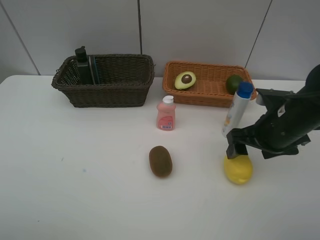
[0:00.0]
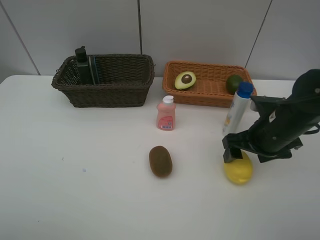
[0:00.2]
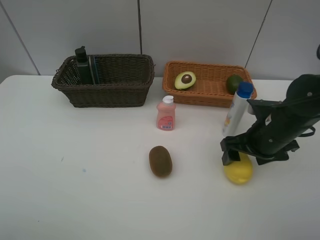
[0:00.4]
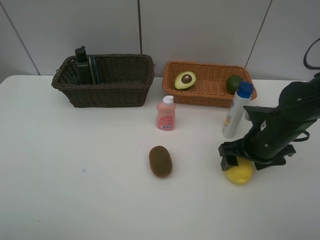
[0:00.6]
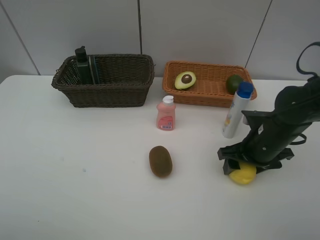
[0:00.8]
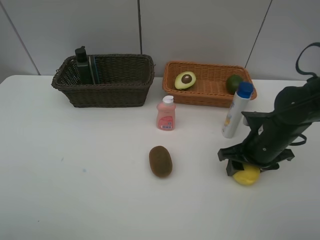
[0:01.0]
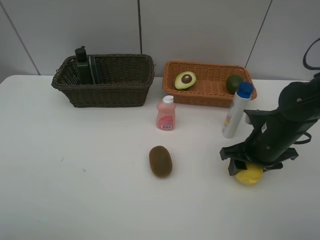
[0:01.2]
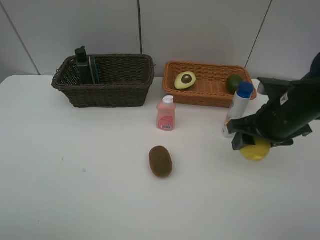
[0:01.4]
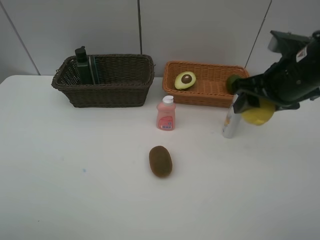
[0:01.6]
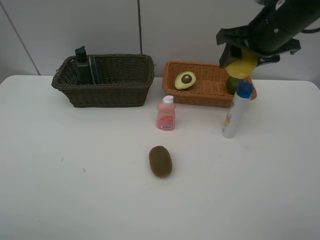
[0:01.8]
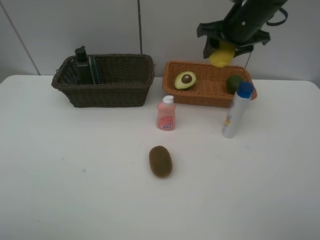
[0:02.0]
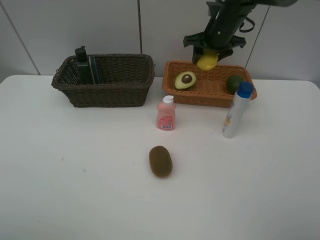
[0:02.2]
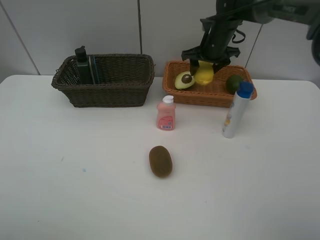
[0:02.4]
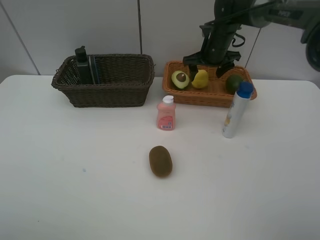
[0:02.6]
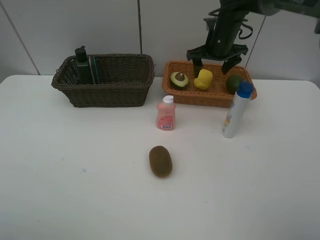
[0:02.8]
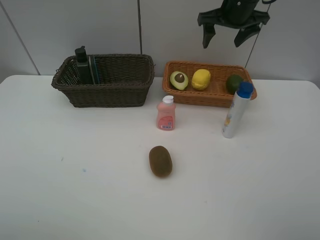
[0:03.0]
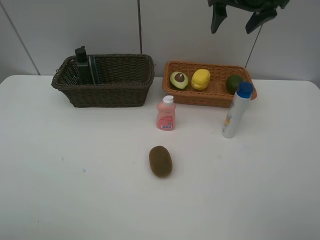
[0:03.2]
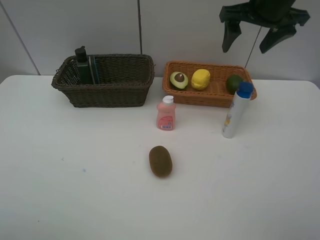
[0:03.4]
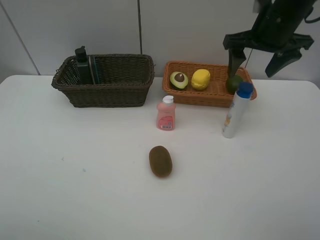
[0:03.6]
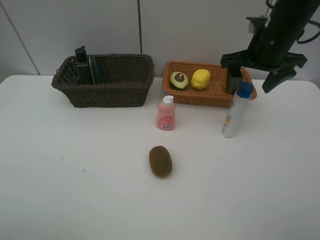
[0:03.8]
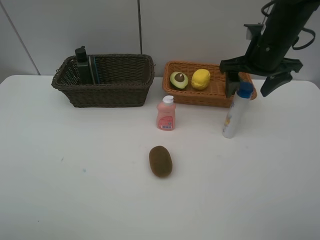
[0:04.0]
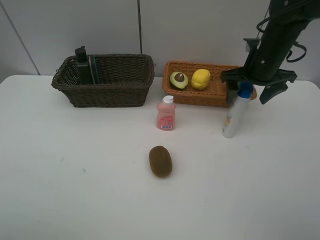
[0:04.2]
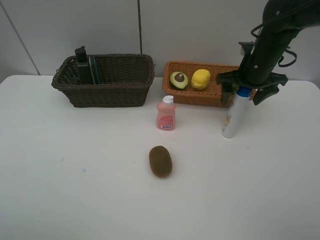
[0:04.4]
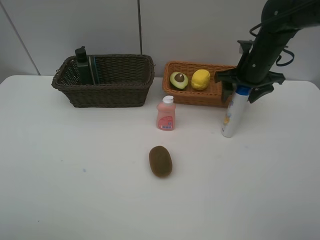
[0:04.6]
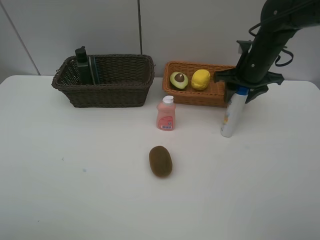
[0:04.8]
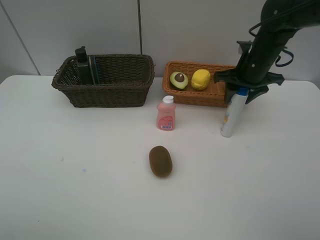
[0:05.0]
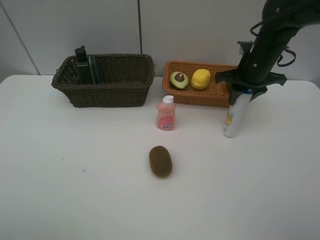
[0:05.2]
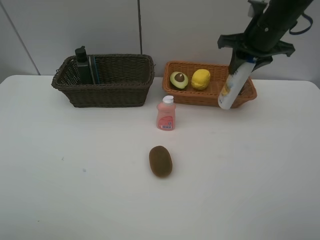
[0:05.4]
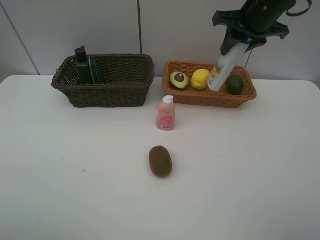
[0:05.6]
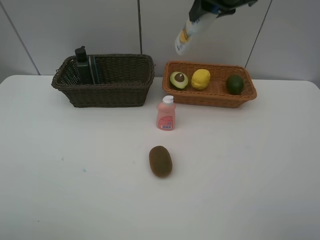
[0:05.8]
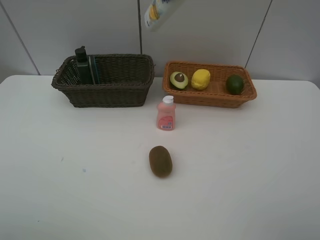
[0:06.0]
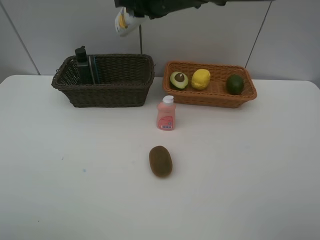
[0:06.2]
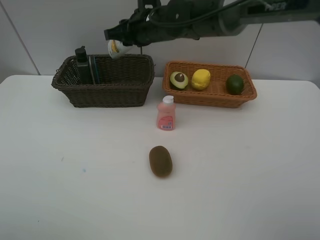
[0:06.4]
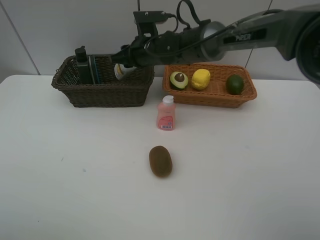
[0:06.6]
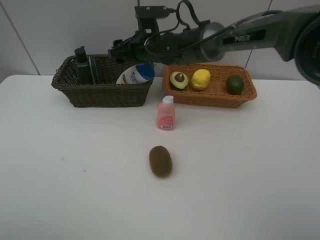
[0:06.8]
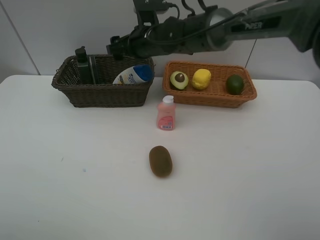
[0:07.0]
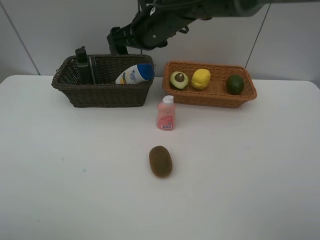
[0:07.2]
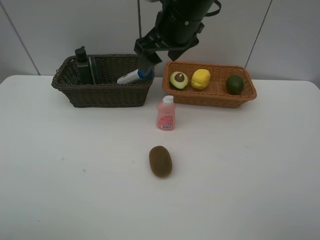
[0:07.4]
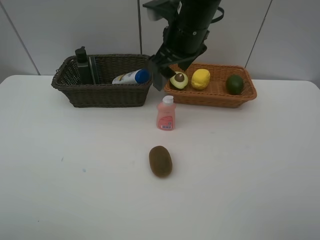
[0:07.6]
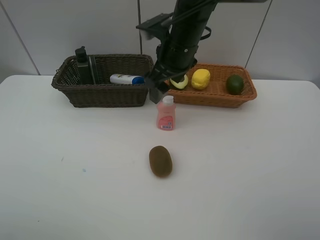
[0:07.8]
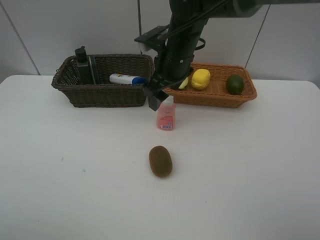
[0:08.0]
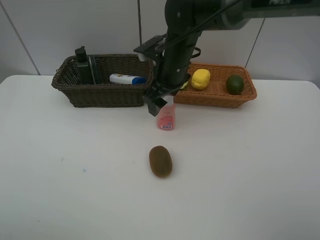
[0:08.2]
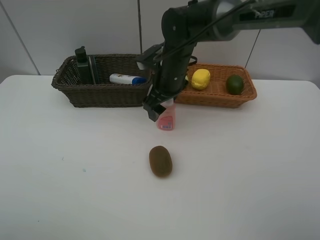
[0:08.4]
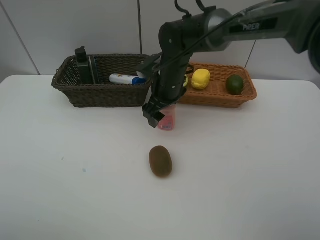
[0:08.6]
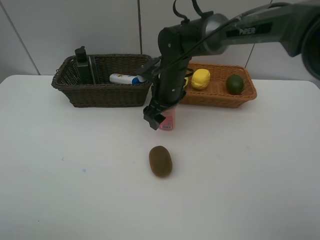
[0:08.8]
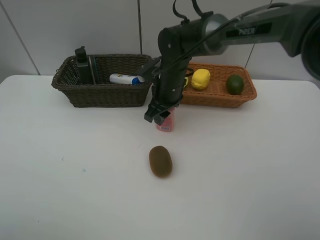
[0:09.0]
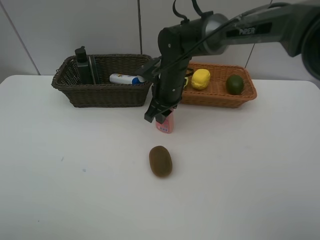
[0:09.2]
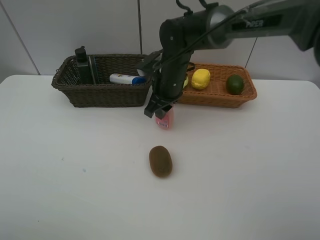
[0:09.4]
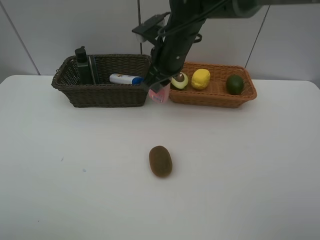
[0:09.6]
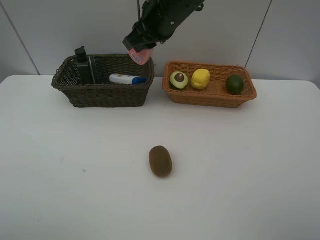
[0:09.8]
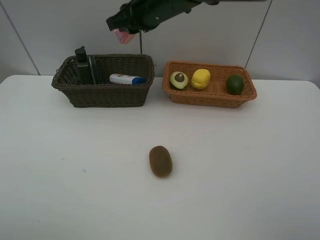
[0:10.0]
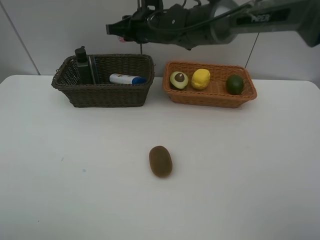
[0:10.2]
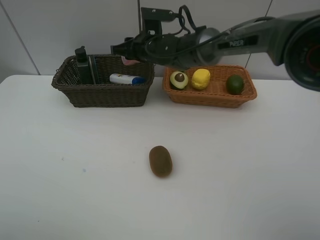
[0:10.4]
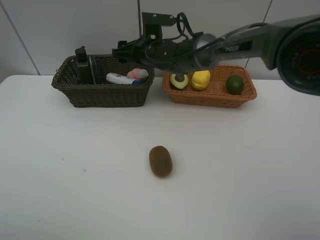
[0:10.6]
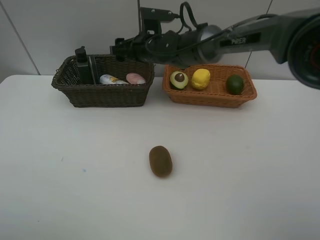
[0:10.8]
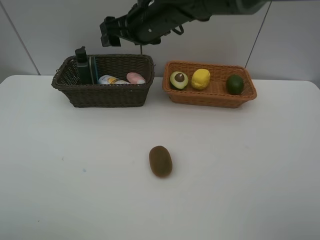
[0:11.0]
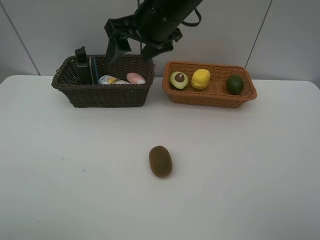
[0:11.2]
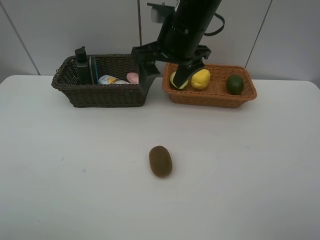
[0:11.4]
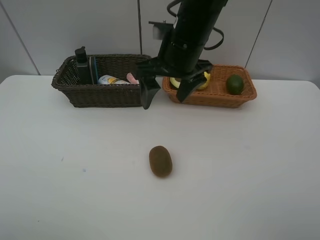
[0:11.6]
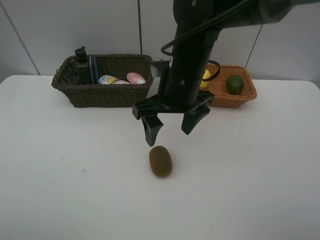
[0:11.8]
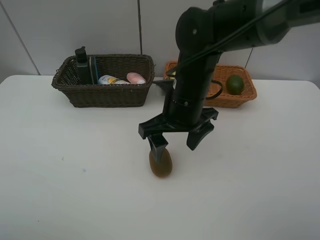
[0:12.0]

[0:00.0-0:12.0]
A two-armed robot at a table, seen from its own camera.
Task of the whole recording: Place multiple objects separately in different baskets.
Step, 0:01.4 to 0:02.6: Place the lemon in the light basket with right gripper.
Step, 0:02.8 to 0:05.2: Pick up the shampoo with right gripper.
Step, 0:05.4 to 0:07.0: Place the shampoo in the dark basket with right gripper.
Step, 0:07.2 to 0:09.4: Pick up the laundry detergent with right gripper.
Step, 0:09.6 to 0:10.8: Place the laundry detergent in the dark basket with right gripper.
0:00.0 to 0:01.6: The right gripper is displaced upward by roughly 10 cm, and closes its fingers.
0:01.6 to 0:03.0: The right gripper is displaced forward by roughly 20 cm, and opens its fingers.
0:03.0 to 0:04.4: The right gripper moves downward and backward, roughly 15 cm.
0:04.4 to 0:06.0: The right gripper heads upward and to the left, covering about 20 cm, and closes up.
0:06.0 to 0:07.6: The right gripper is displaced downward and backward by about 10 cm, and opens.
0:07.6 to 0:09.0: The right gripper heads downward, covering about 15 cm, and closes its fingers.
0:09.0 to 0:10.4: The right gripper heads forward, covering roughly 5 cm, and goes upward and returns, roughly 15 cm each way.
0:10.4 to 0:12.0: The right gripper shifts approximately 20 cm backward and to the right, and opens up.

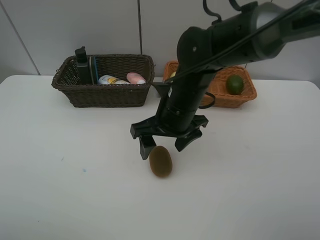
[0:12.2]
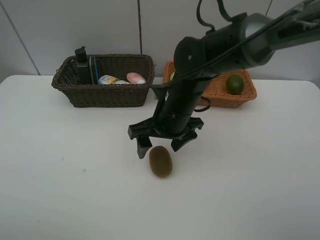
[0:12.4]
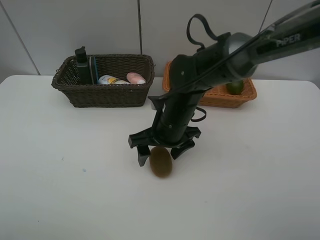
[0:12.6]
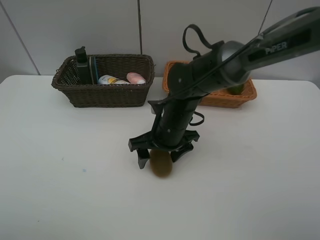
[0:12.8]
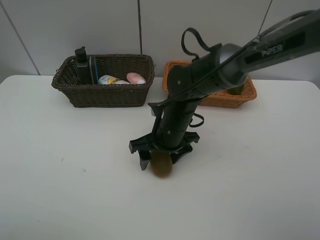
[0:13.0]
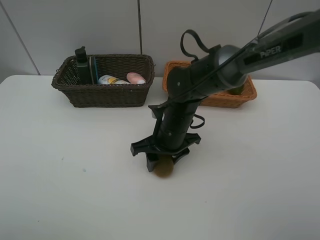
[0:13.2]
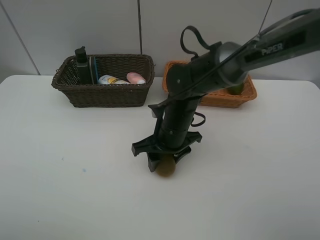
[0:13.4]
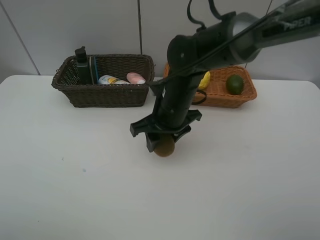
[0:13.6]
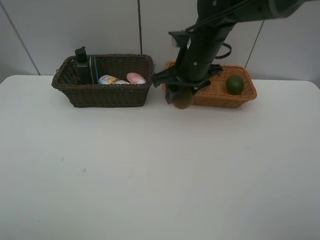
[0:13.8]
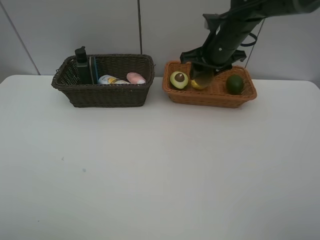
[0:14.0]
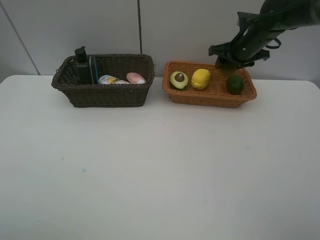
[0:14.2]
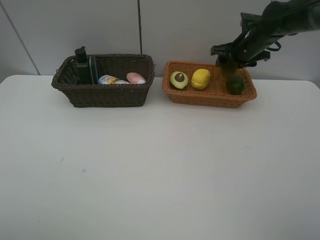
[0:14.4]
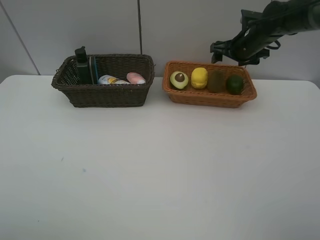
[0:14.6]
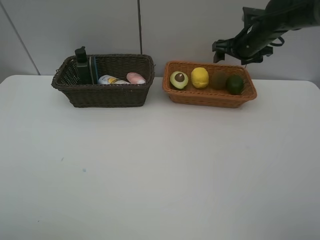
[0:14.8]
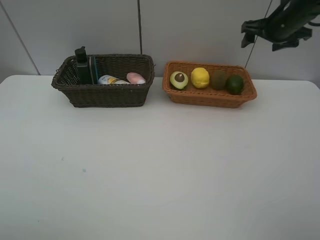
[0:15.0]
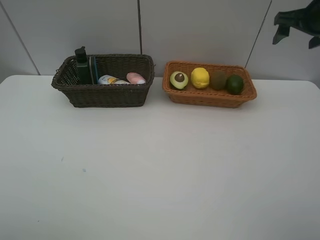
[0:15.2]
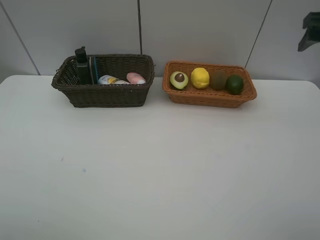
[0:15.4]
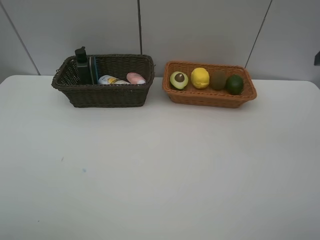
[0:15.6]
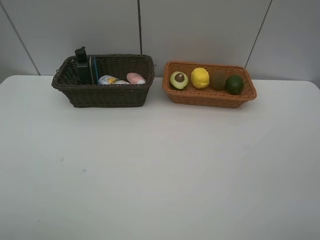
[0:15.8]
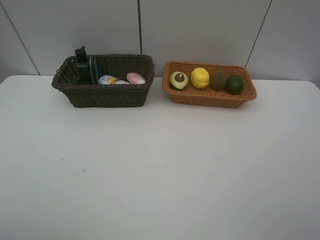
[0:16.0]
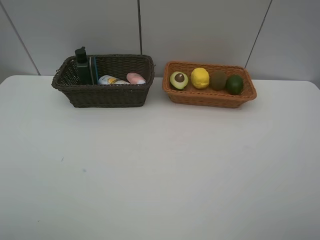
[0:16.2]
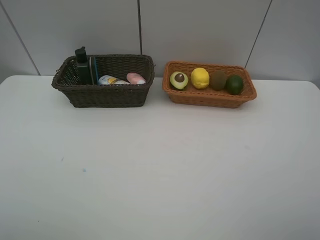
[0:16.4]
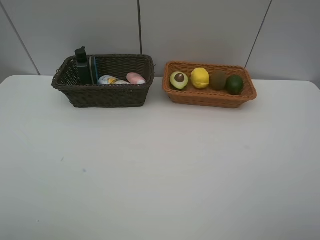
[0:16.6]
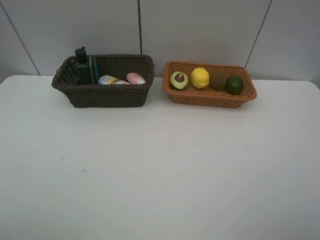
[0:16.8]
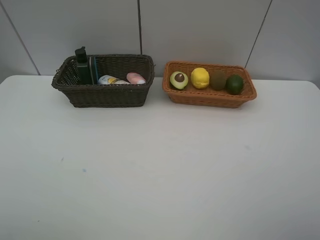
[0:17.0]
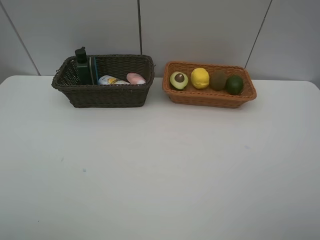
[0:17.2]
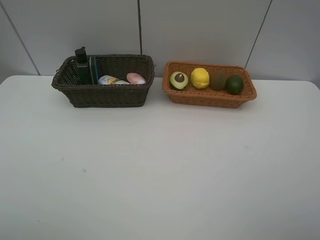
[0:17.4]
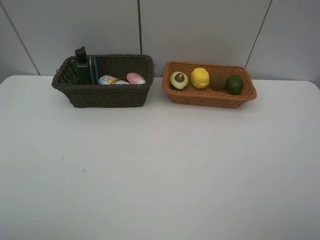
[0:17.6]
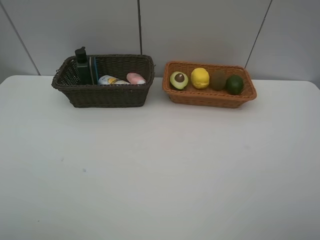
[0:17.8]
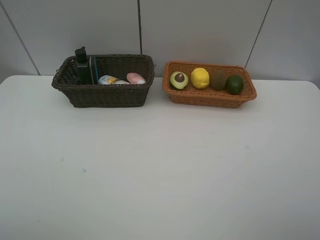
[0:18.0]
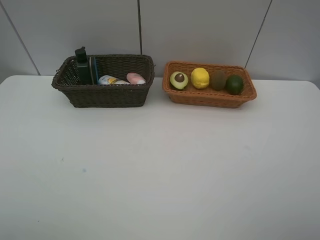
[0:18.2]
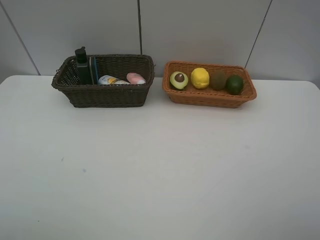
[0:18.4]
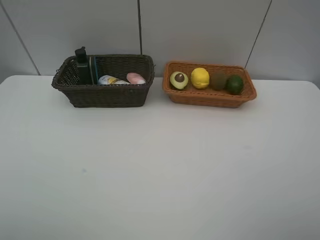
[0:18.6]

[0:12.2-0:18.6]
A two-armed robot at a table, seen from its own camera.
Task of the whole recording: Place multiple objects separately in different baskets.
Step, 0:13.6 to 0:14.6: Place the kiwi in the light basket with right gripper.
0:12.2 to 0:13.8: The right gripper shifts about 10 cm forward and upward, and closes.
0:13.8 to 0:15.4: The right gripper heads to the right and upward, covering roughly 25 cm, and opens.
0:15.4 to 0:17.0: The right gripper heads backward, covering roughly 30 cm.
0:17.0 to 0:18.6: Both grippers stay put.
